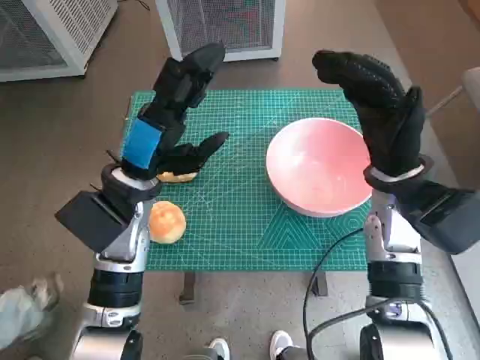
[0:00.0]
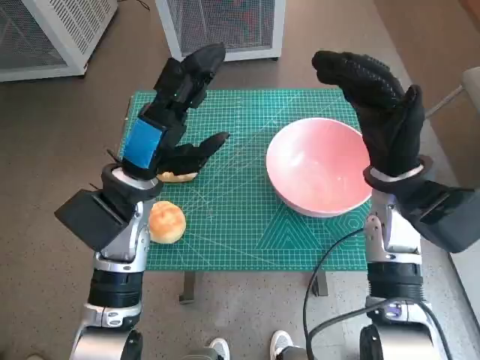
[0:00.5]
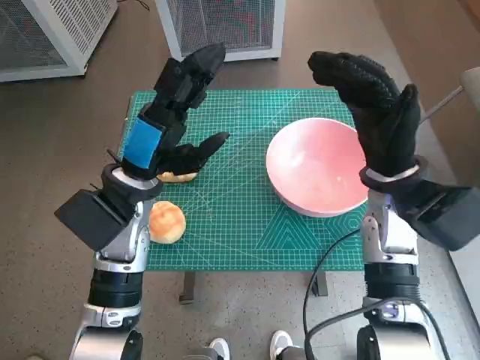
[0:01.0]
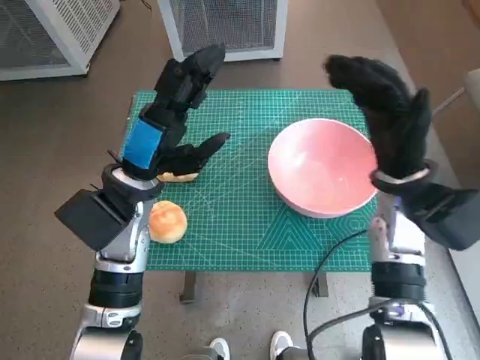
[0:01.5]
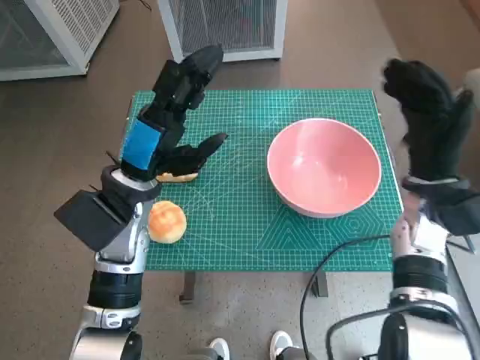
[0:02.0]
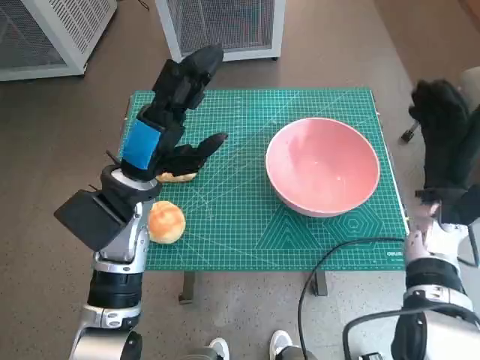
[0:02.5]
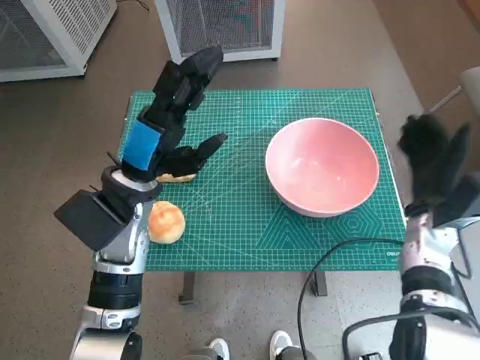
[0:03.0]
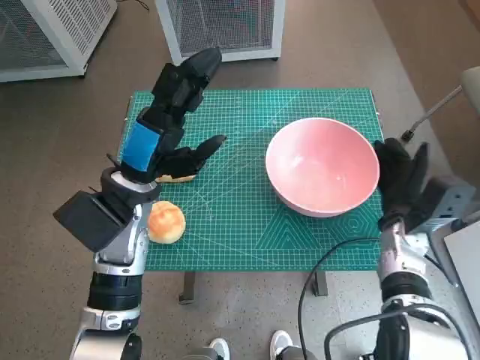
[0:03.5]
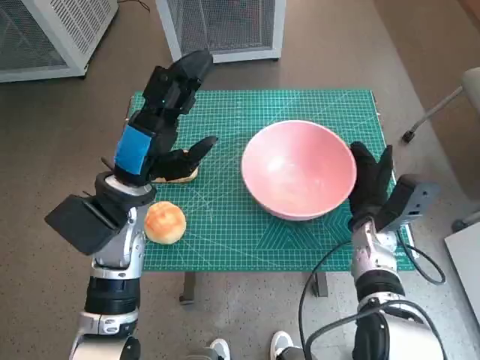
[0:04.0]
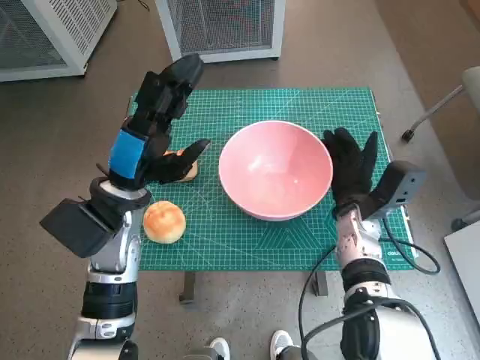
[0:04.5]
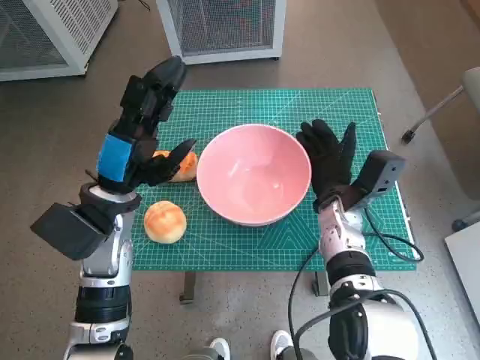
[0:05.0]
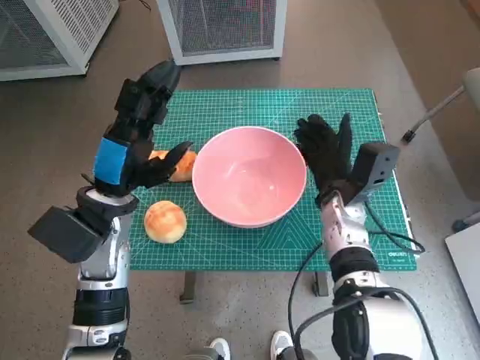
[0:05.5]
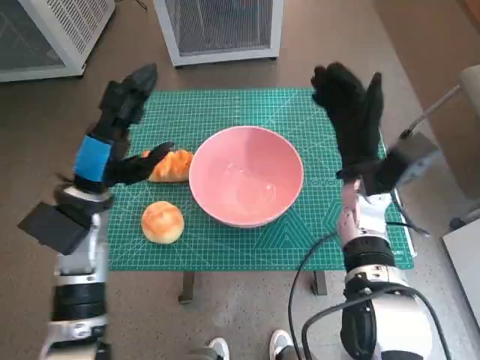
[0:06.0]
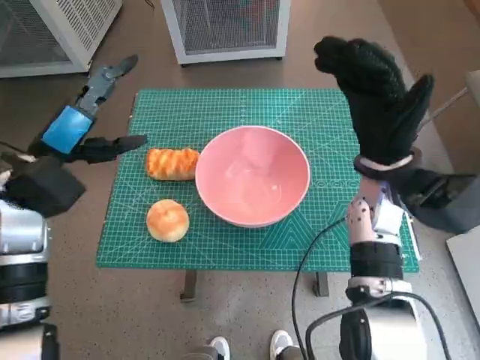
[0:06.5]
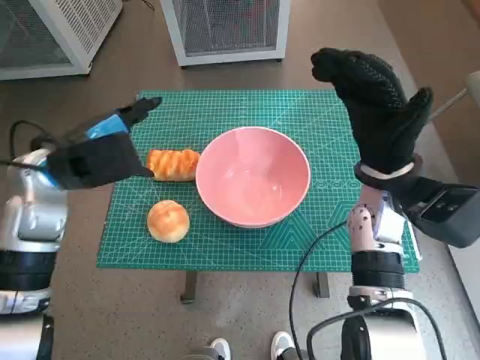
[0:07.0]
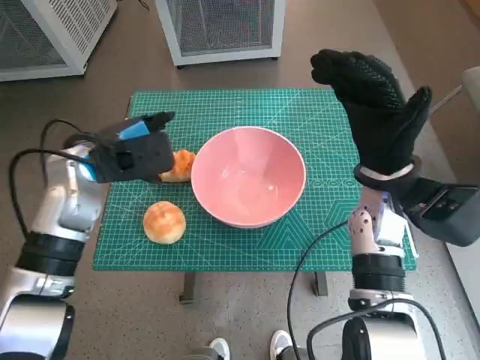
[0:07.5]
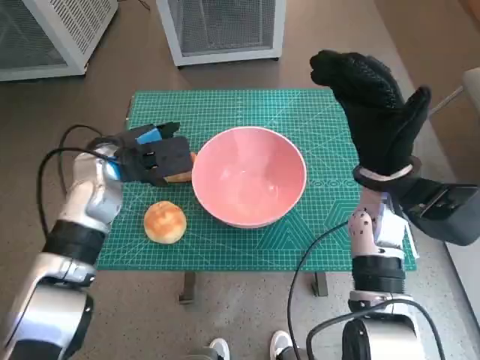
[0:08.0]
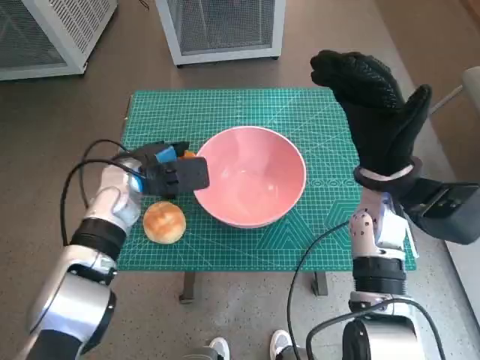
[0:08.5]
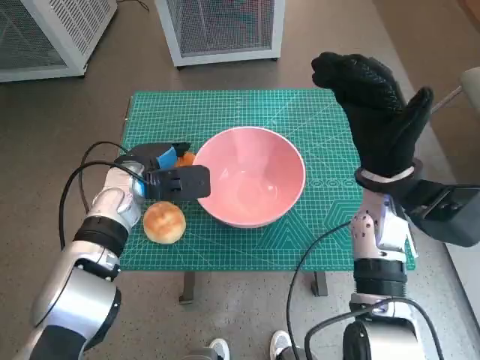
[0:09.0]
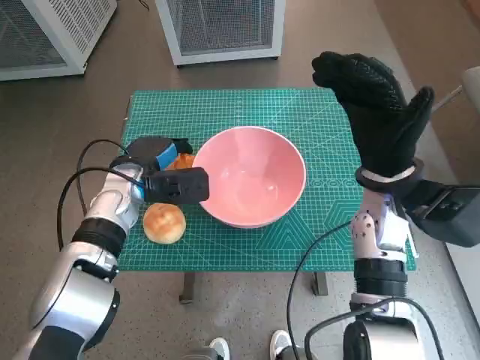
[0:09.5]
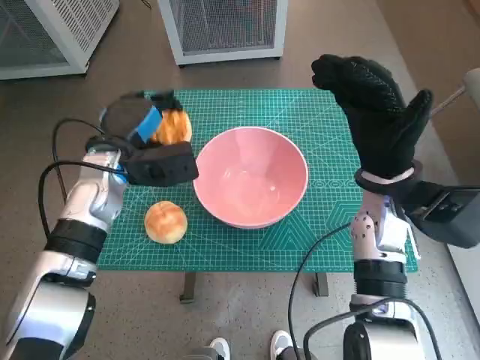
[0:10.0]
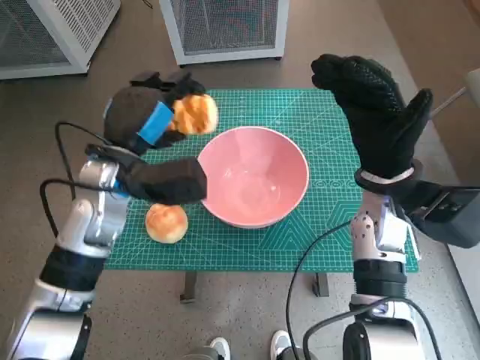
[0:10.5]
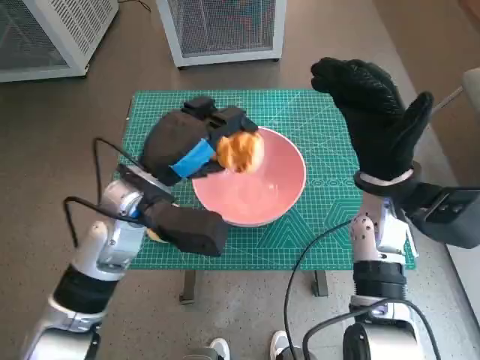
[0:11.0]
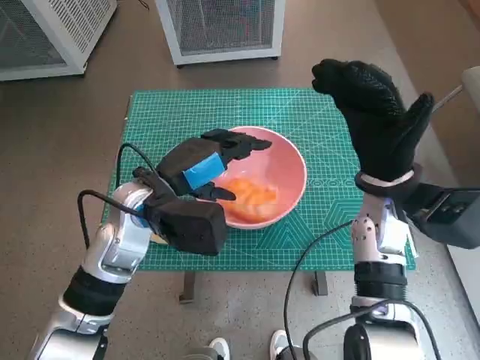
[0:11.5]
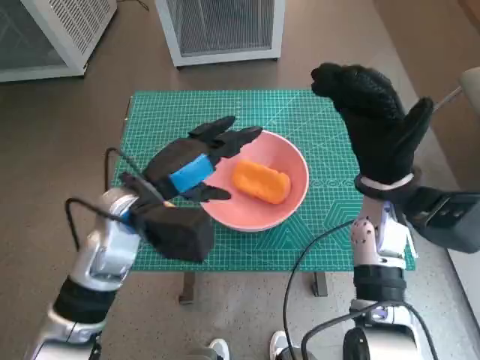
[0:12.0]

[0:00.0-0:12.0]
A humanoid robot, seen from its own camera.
Task of the whole recording: Push the bowl into the center of the table and put the bread into the bowl.
Step, 0:00.0 to 0:05.5: Move the pink bowl to the center of table with right hand.
Step, 0:06.0 to 0:09.0: Grasp the long bread with left hand.
Step, 0:09.5 to 0:11.0: Place the long bread in pink bowl with left hand.
0:02.0 to 0:04.0: The right hand shifts about 10 cm downward.
0:04.0 to 0:06.0: The right hand travels upward by approximately 10 cm; the left hand goes some 5 cm to the left.
0:06.0 to 0:08.0: The left hand is displaced forward by approximately 5 cm. The right hand moves upward, approximately 5 cm.
0:10.0 to 0:12.0: The left hand moves backward and to the right, about 10 cm.

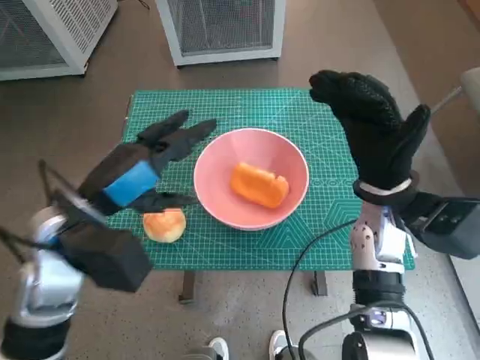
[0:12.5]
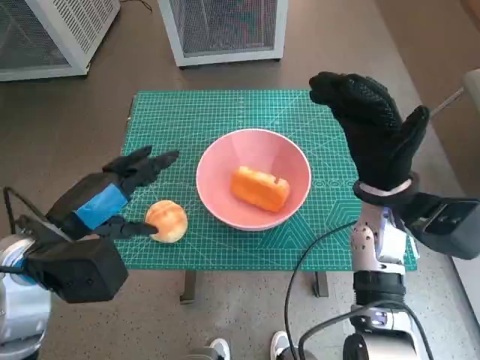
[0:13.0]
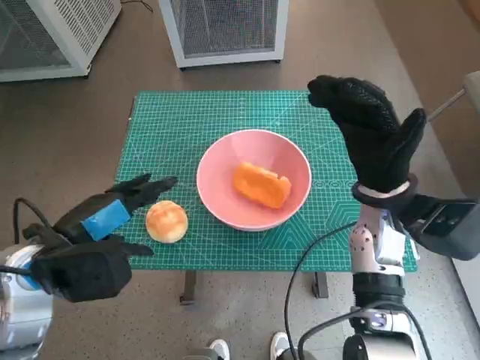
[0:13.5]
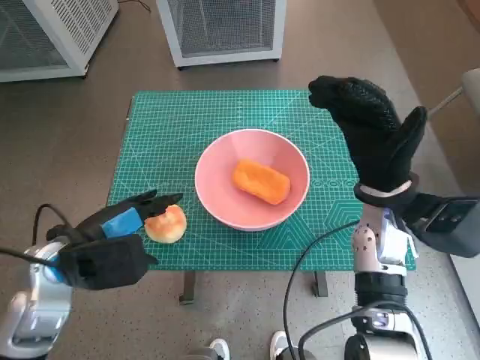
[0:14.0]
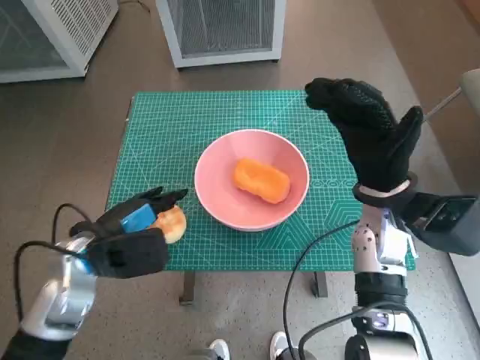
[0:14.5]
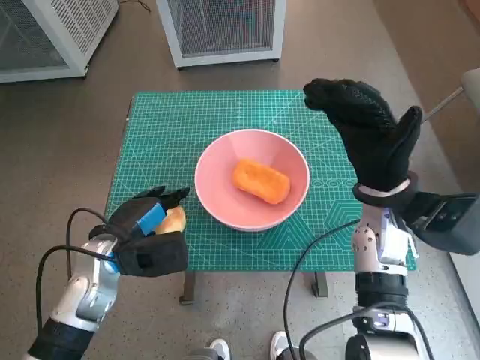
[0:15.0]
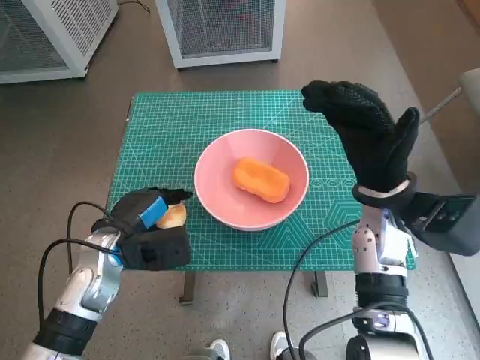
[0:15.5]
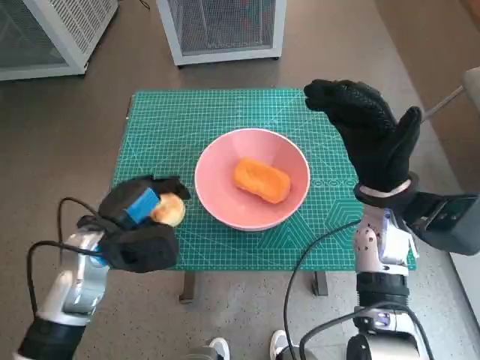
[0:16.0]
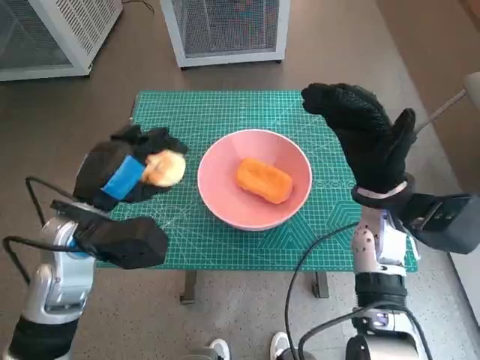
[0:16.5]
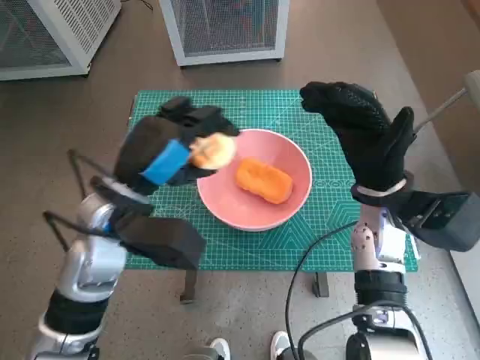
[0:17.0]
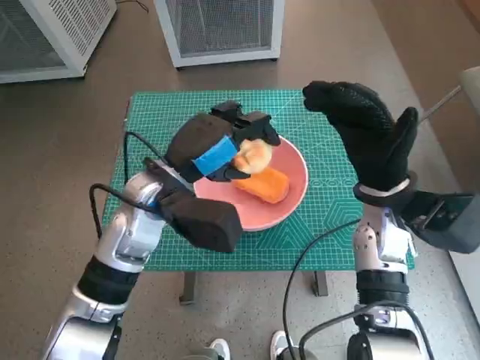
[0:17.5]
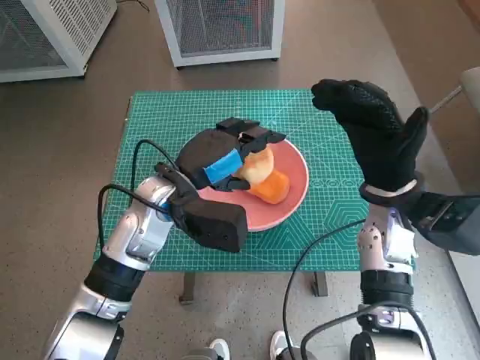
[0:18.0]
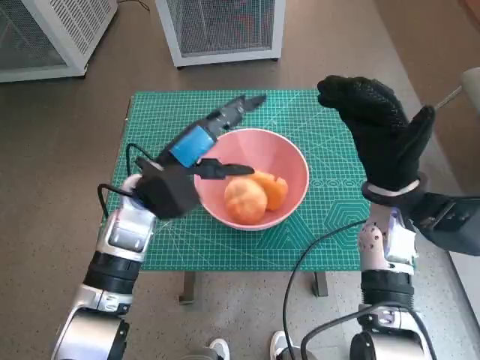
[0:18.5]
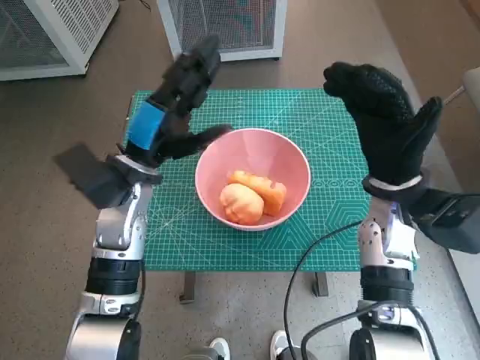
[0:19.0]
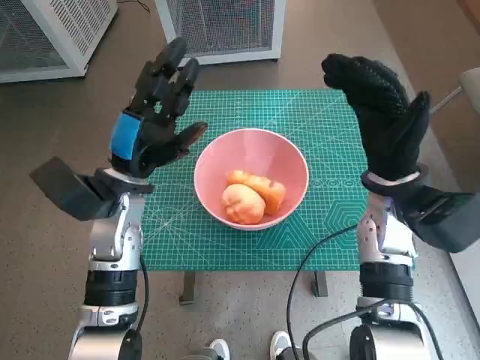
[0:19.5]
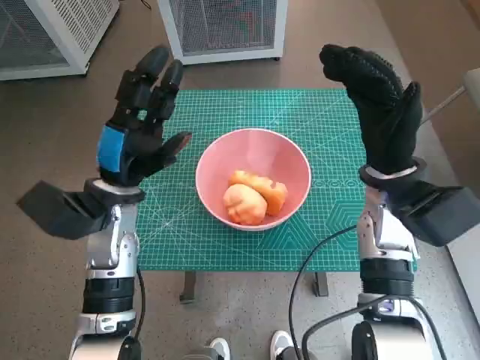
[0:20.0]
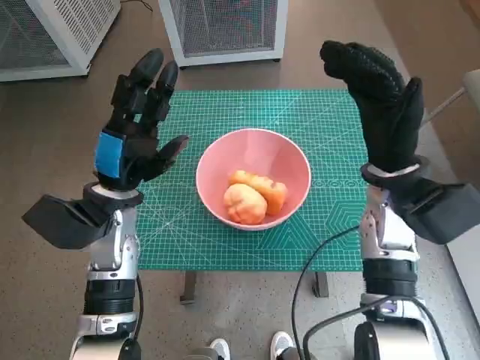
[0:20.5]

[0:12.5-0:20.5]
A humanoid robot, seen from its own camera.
Task of the whole recording: Push the bowl into the center of the table and put the bread into the bowl.
Step, 0:12.5 to 0:14.5: Grasp the round bread with left hand.
Step, 0:15.0 to 0:18.0: Place the round bread in pink bowl with left hand.
0:12.5 to 0:14.5: The left hand is displaced downward by some 5 cm.
0:16.5 to 0:18.5: The left hand goes approximately 10 cm forward and to the right.
0:18.5 to 0:20.5: The left hand ends up roughly 5 cm from where it was.
